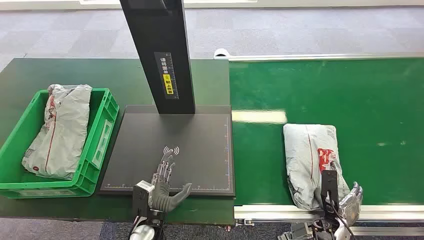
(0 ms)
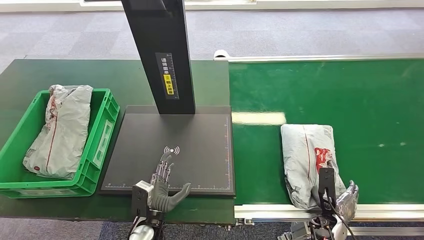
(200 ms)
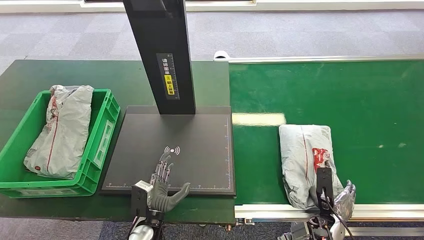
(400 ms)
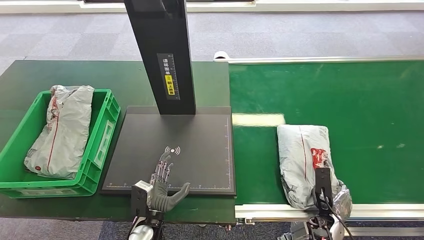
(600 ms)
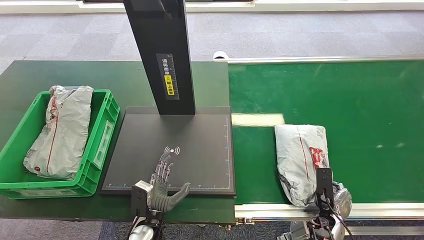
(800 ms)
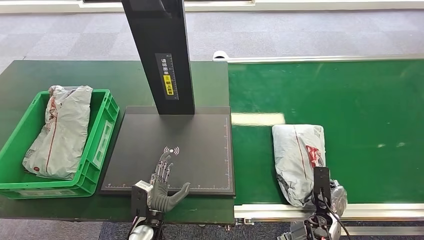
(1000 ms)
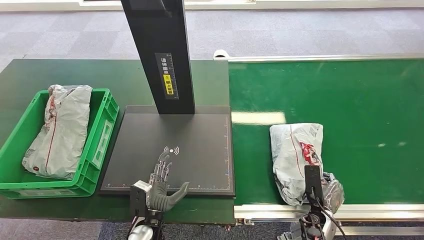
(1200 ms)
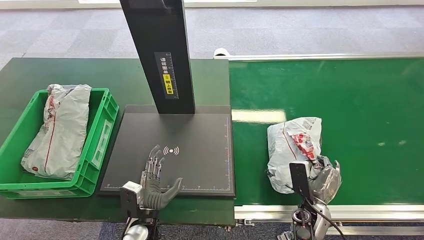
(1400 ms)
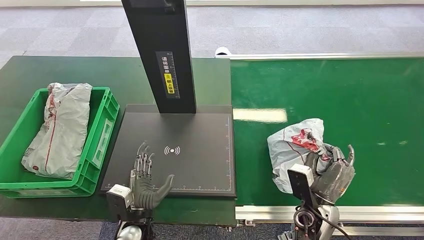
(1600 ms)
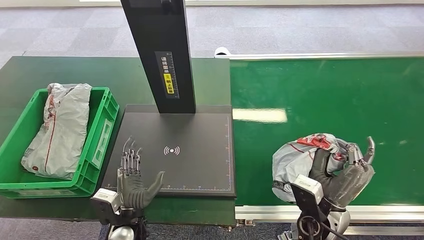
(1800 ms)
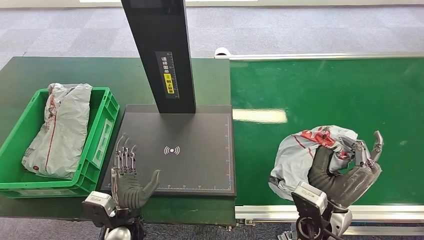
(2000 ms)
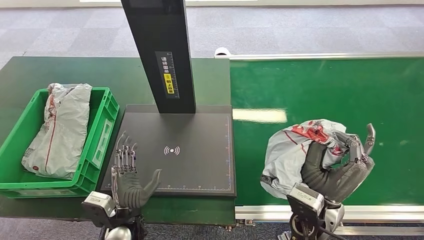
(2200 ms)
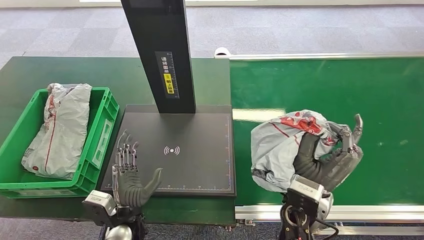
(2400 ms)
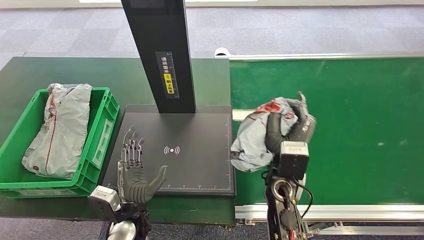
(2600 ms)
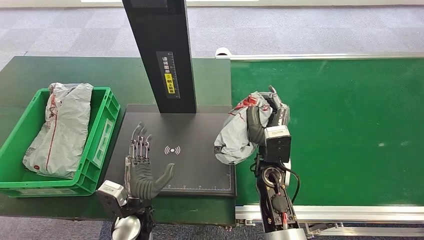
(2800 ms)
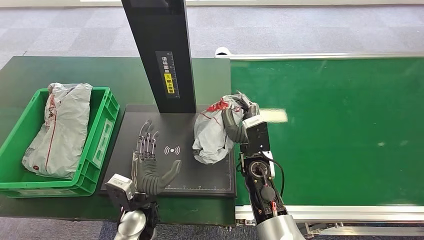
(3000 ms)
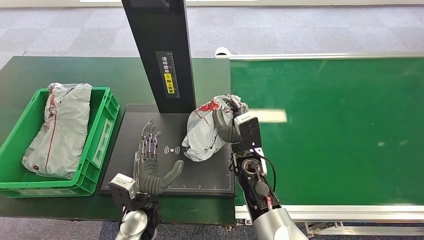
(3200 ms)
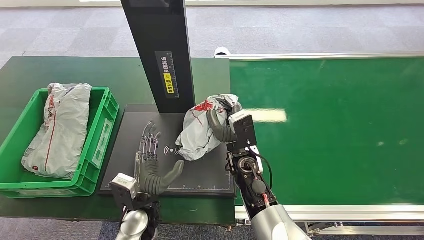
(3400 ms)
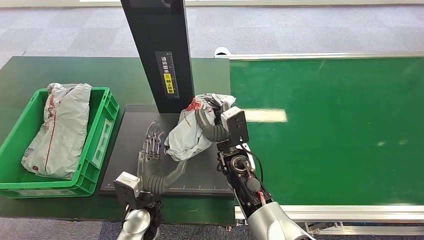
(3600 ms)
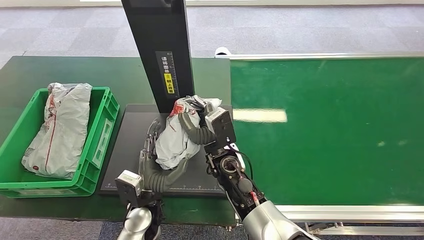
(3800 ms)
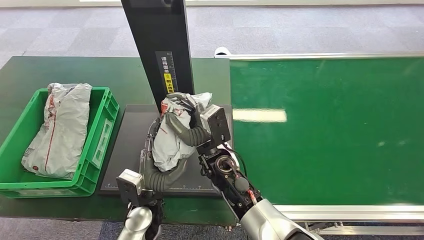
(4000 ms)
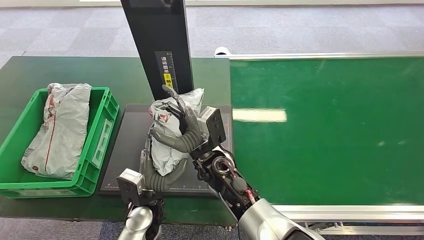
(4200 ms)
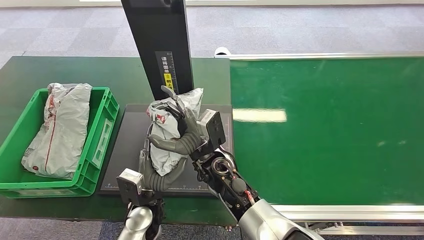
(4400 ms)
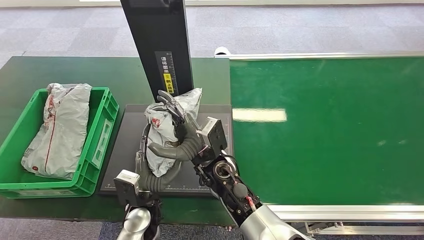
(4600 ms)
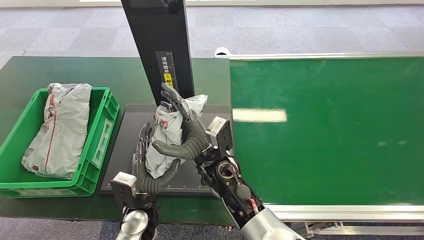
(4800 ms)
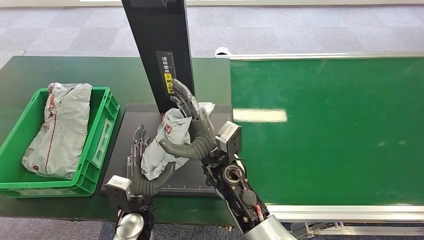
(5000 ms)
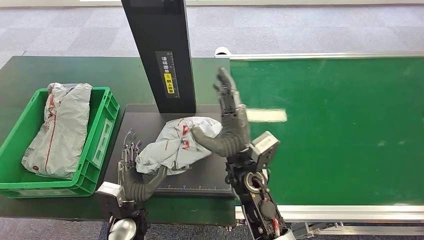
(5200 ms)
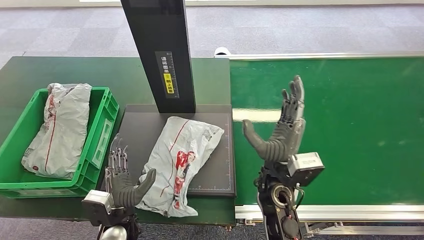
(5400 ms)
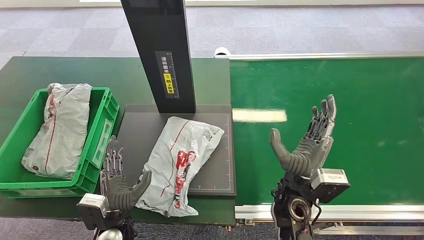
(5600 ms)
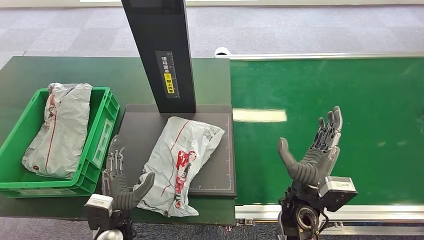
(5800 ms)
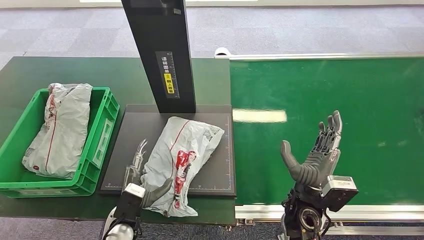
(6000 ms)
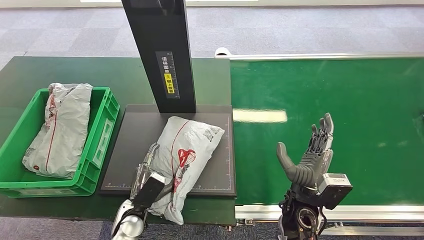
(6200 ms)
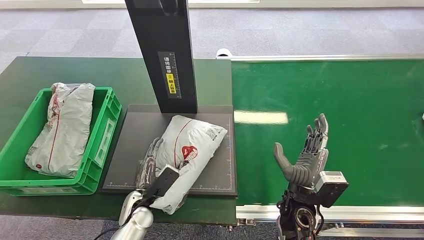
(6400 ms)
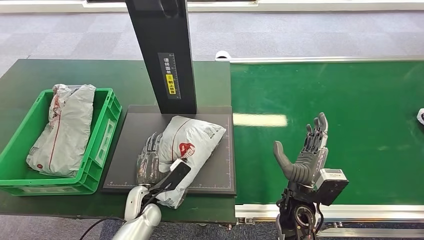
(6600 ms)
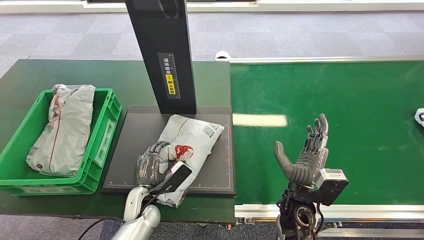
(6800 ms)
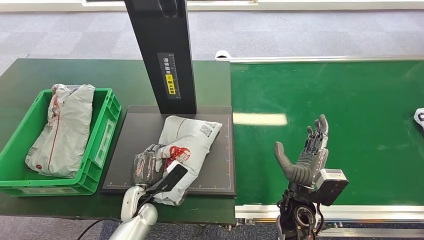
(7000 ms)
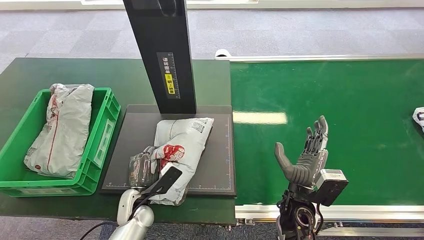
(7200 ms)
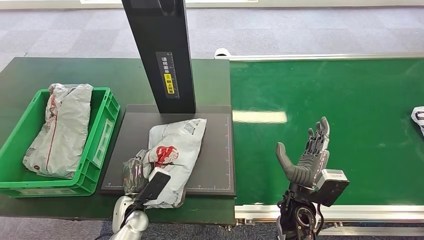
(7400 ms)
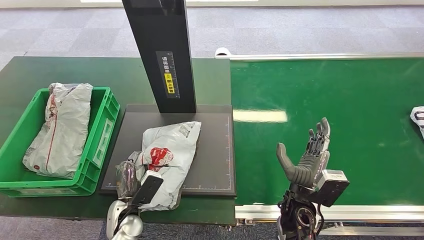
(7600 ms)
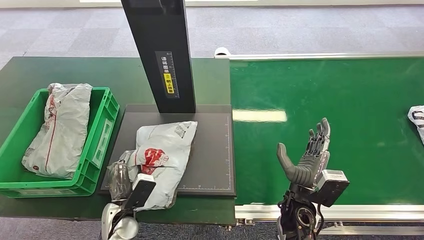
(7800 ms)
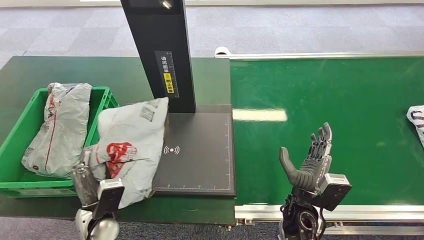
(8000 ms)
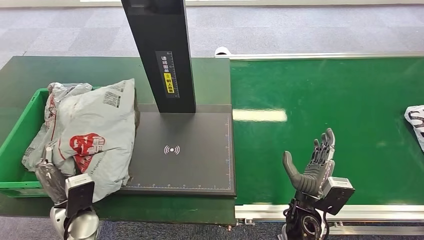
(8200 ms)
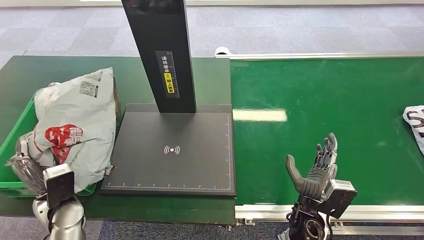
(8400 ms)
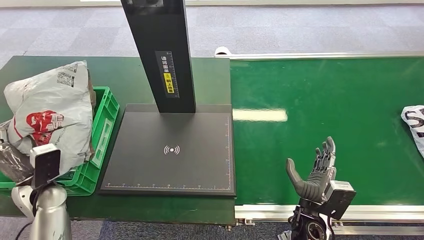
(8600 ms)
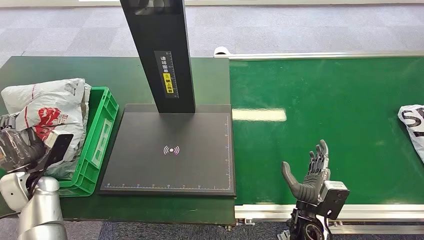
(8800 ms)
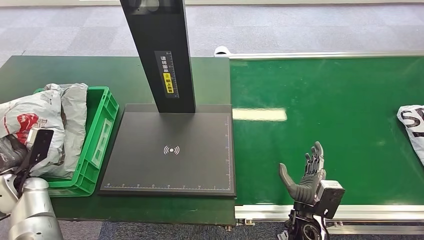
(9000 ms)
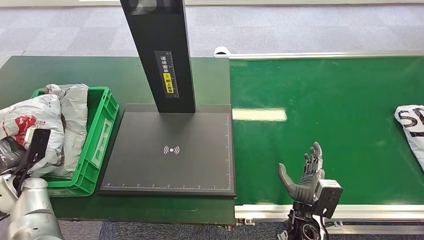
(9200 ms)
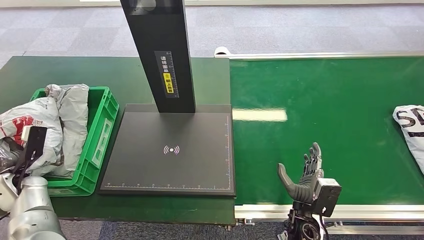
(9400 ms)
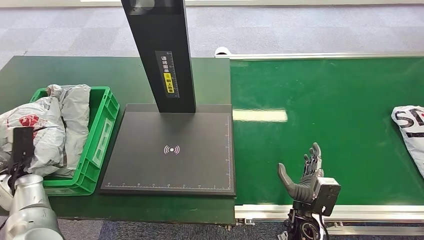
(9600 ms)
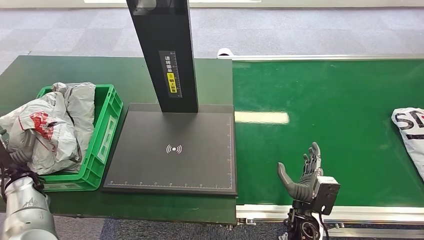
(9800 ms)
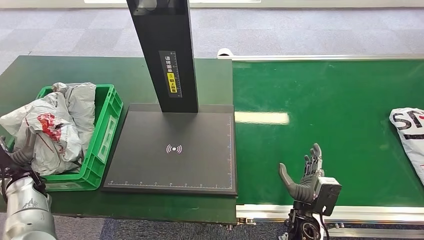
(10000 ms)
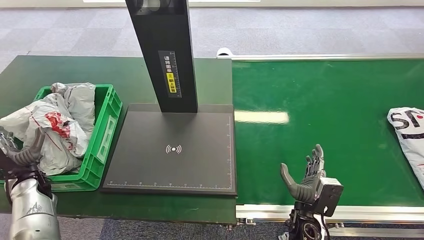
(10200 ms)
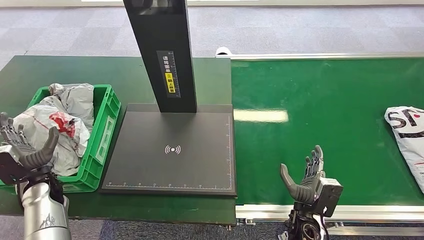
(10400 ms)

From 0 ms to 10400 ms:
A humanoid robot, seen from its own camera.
Task of the whole recording: Weigh the package on the weighing device and place it in the left basket.
Step, from 0 ms to 2200 ms: Pick up the package from the conveyor belt.
Step, from 2400 ms to 5800 ms: Place the package onto the inbound machine.
Step, from 6200 ms to 8600 ms: Pick up the package from the inbound machine.
Step, from 8800 ms to 10400 ms: Place the package into the parcel locker.
From 3000 ms to 4400 ms: The right hand moves to the left, some 10 cm.
From 4400 ms to 6000 ms: The left hand travels to the left by some 5 cm; the right hand travels to the right by some 20 cm.
From 9000 ms to 10400 ms: The left hand heads to the right, covering roughly 5 cm.
